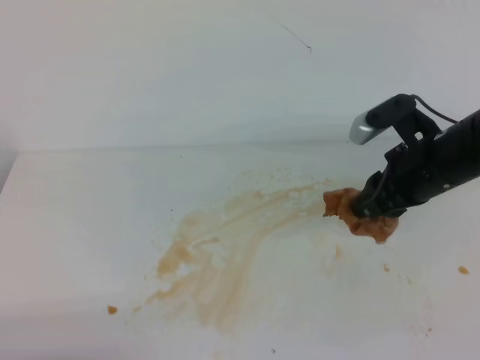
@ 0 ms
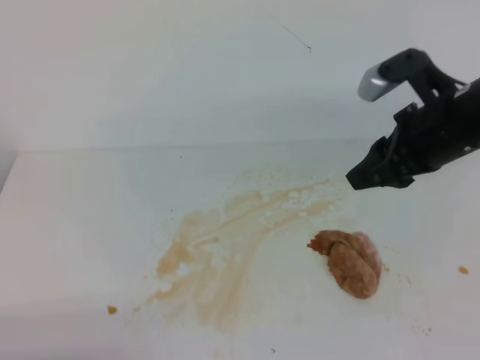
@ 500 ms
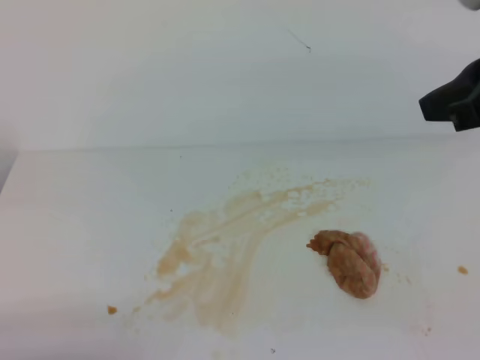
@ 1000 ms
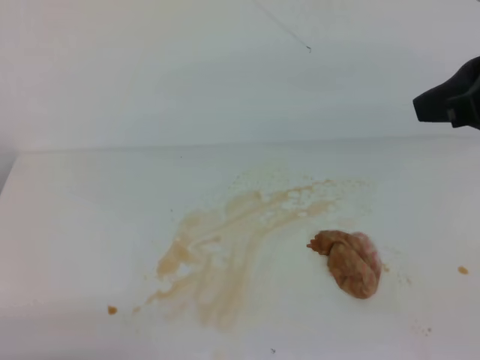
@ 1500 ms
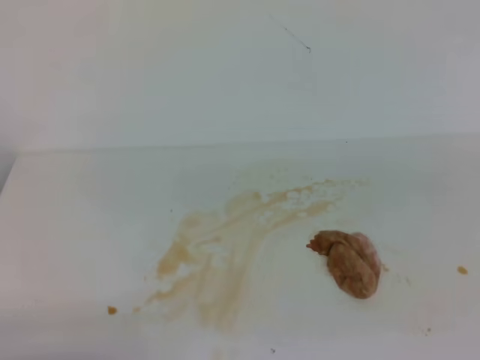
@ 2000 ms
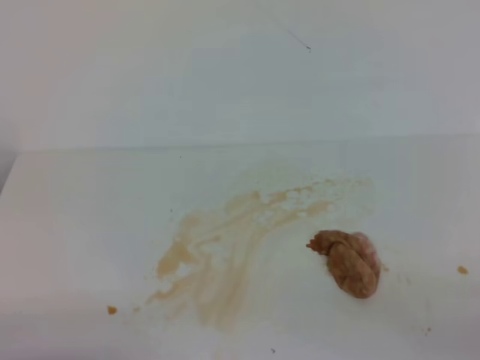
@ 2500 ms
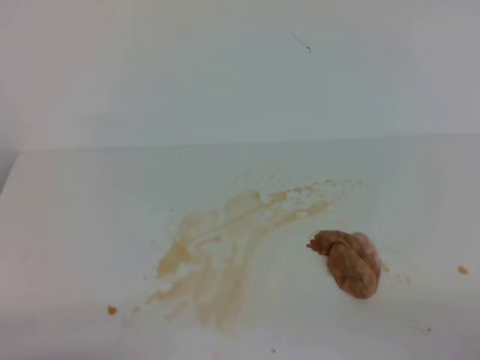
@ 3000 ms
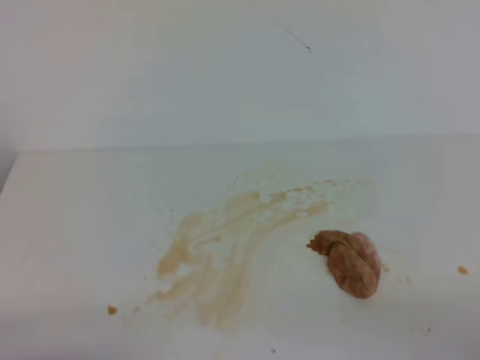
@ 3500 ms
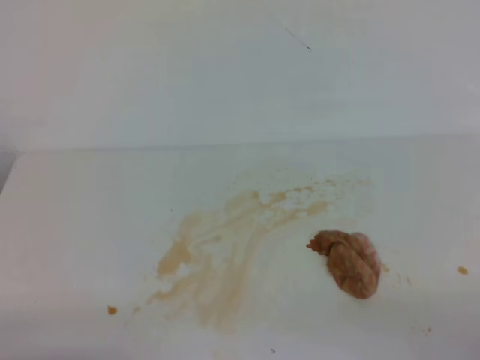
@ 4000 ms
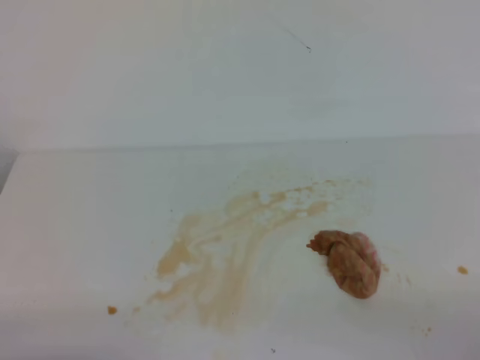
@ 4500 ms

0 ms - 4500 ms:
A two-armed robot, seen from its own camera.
0 ms - 2000 ms: The right gripper is displaced backward, upward and to the right by roughly 30 cm, and closes up.
